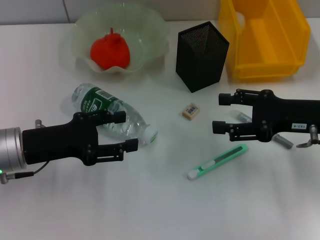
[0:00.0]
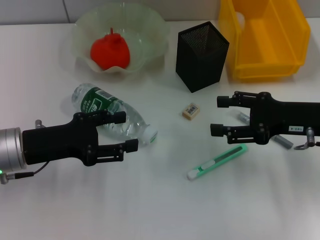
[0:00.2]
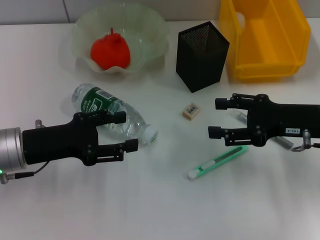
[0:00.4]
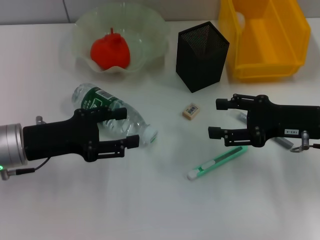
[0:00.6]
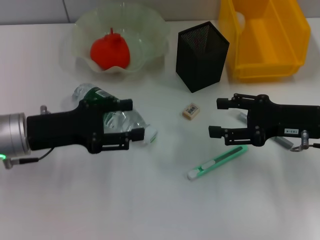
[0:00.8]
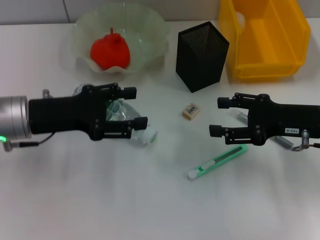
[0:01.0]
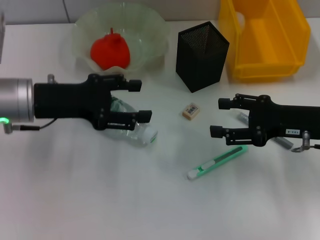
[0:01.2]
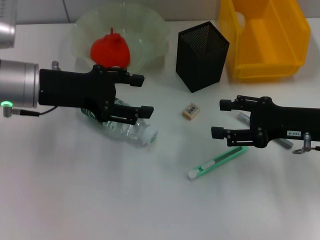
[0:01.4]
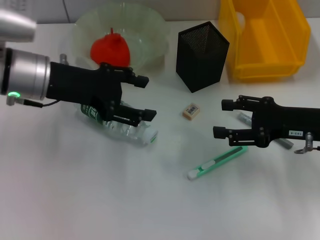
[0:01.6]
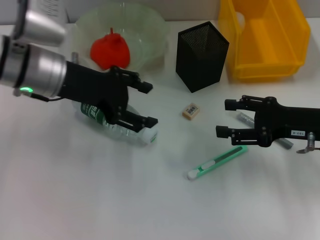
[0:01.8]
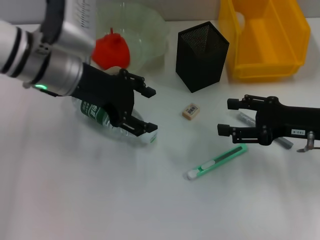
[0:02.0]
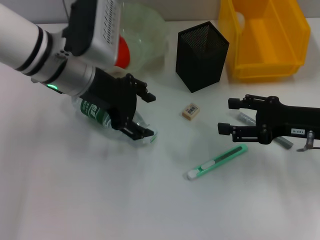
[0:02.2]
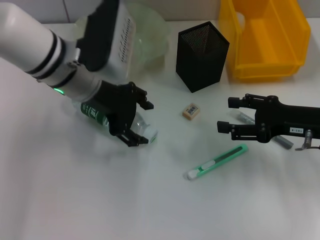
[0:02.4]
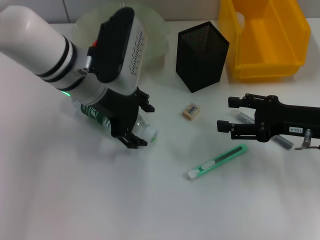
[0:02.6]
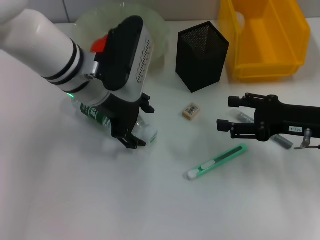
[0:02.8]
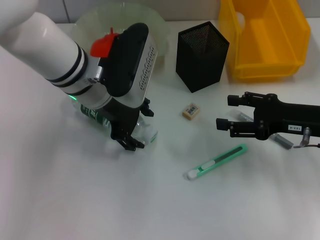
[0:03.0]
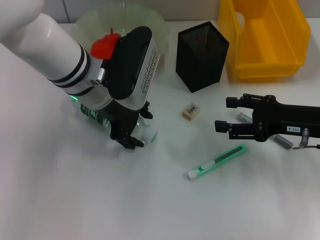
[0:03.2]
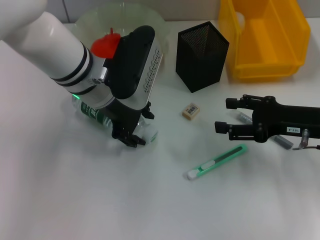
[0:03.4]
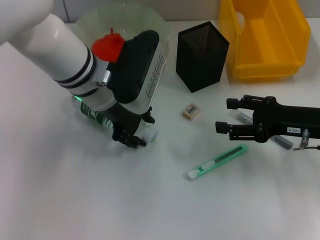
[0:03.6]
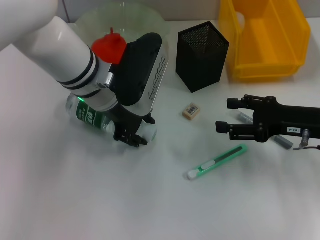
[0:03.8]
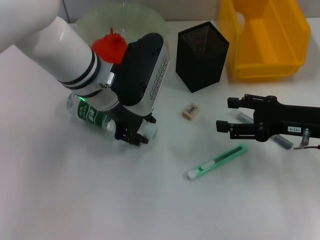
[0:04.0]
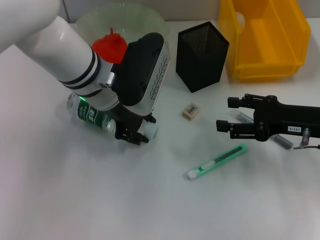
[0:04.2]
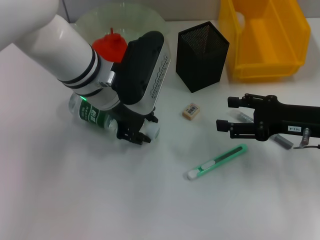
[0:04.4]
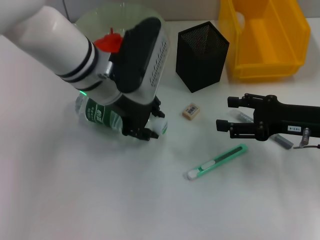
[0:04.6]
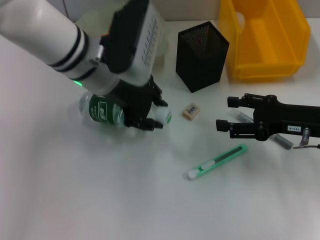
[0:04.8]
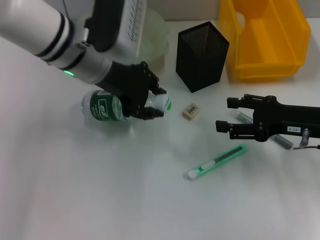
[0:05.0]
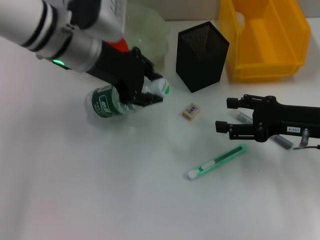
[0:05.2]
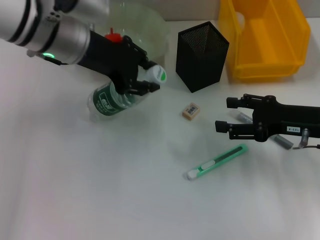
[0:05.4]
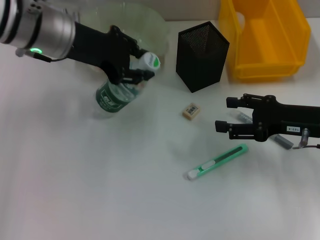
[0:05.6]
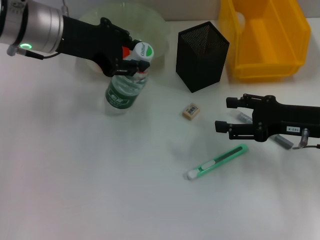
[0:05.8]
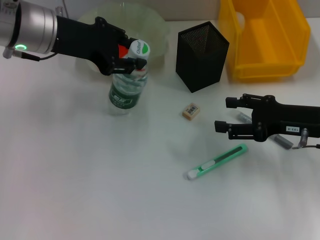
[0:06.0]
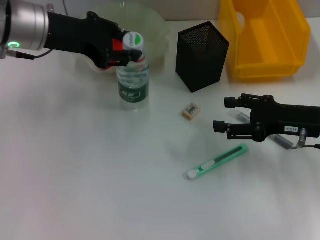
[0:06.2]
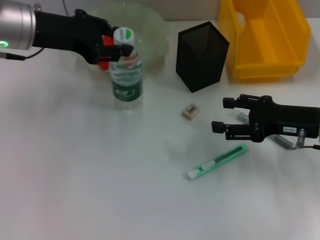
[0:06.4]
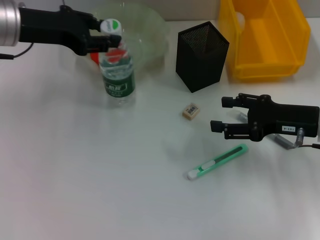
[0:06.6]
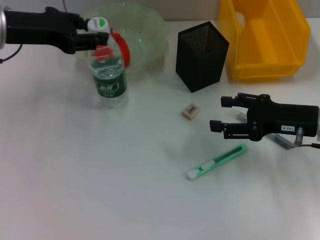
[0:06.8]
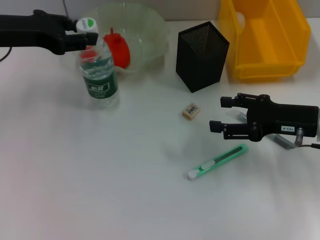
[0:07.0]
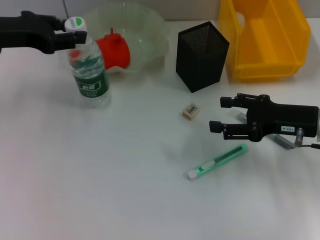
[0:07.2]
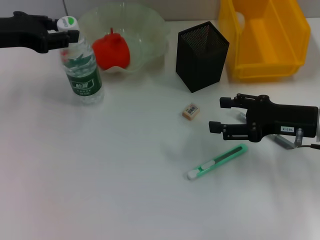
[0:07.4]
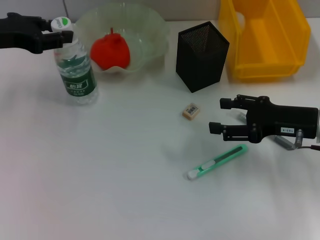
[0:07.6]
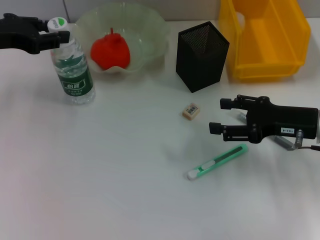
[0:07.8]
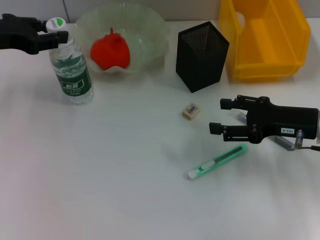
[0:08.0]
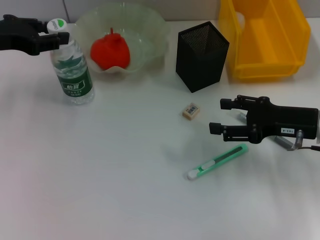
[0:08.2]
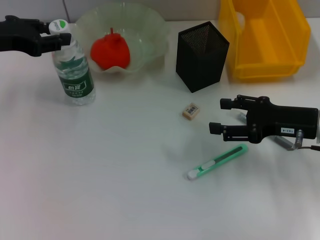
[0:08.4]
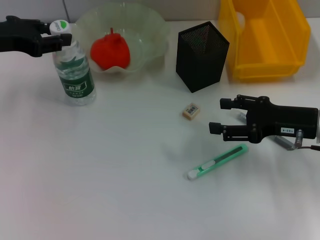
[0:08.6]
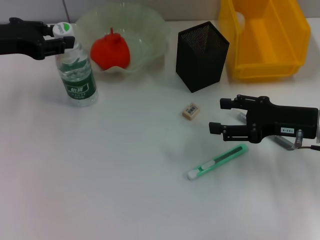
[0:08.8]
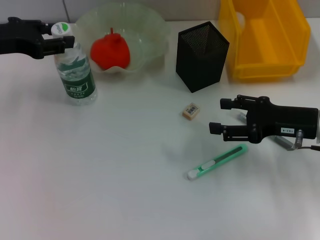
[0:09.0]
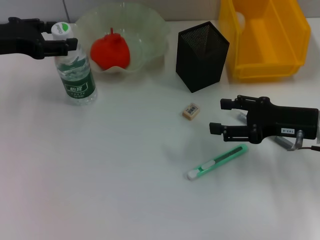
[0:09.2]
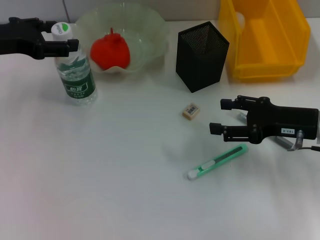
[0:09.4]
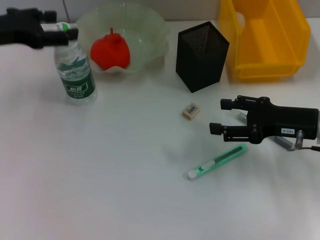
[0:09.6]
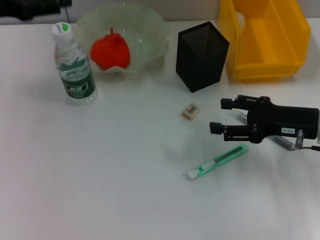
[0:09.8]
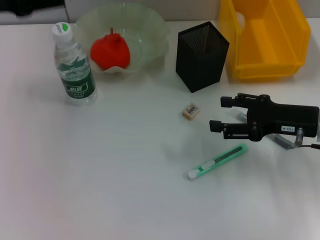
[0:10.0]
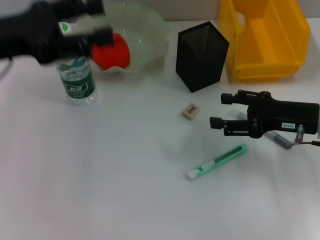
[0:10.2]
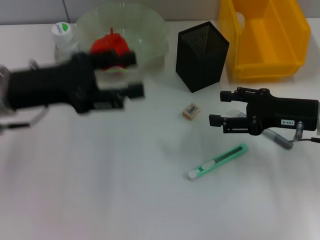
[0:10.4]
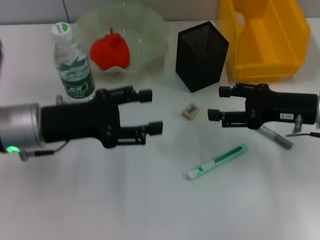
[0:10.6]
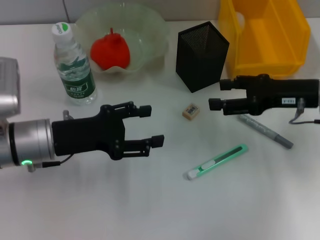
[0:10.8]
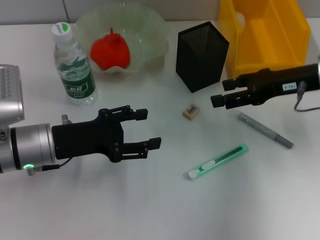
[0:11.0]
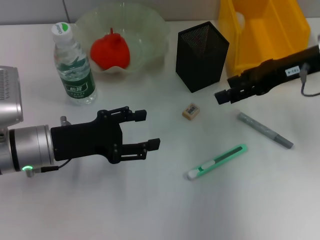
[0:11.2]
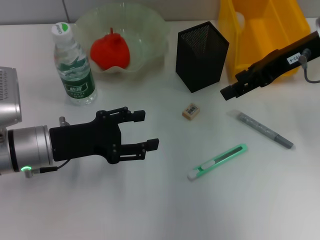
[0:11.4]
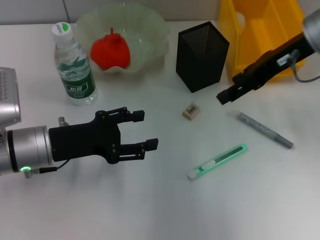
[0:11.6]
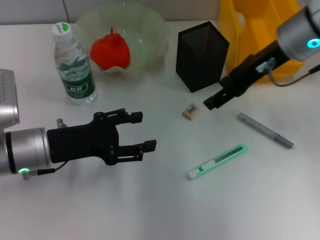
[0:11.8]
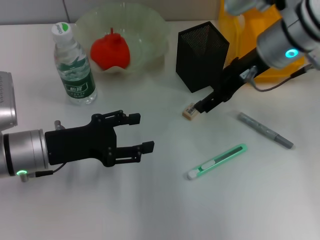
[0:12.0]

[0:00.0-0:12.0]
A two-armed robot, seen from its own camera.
Step, 0:00.0 to 0:03.6: Grab the water bottle with the left hand.
Step, 0:04.0 to 0:07.8: Place the water bottle on the table with the left hand.
0:00.0 to 0:01.6: The left gripper shifts roughly 10 cm upward and forward.
0:01.6 to 0:03.0: The left gripper heads to the right, covering roughly 10 cm.
0:03.0 to 0:04.4: The left gripper closes up.
0:04.4 to 0:06.0: The left gripper travels to the left and upward by approximately 10 cm.
0:06.0 to 0:07.6: The left gripper is displaced to the left by approximately 10 cm.
0:07.6 to 0:09.0: Both grippers stay put.
0:09.0 to 0:10.4: The left gripper travels backward and to the right by approximately 10 cm.
0:10.4 to 0:12.0: The left gripper moves downward, roughly 10 cm. The right gripper travels to the left, upward and forward by some 15 cm.

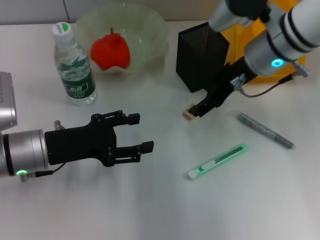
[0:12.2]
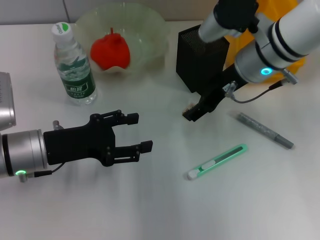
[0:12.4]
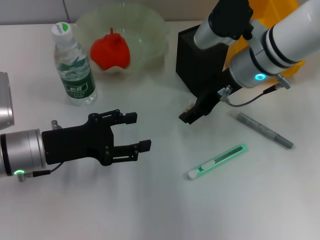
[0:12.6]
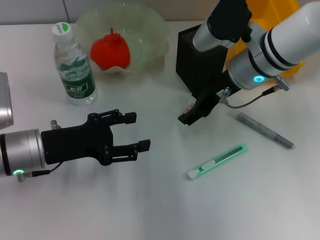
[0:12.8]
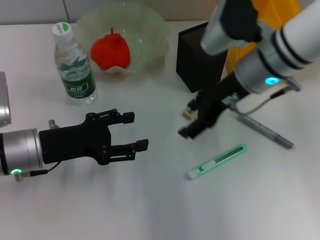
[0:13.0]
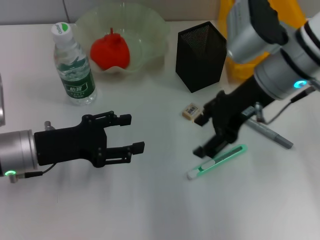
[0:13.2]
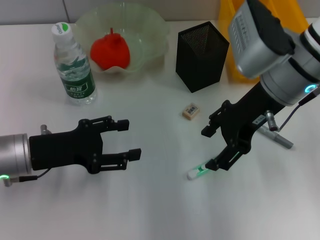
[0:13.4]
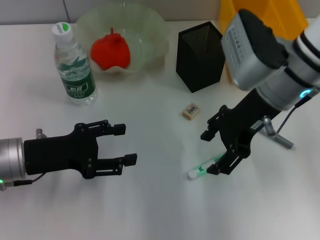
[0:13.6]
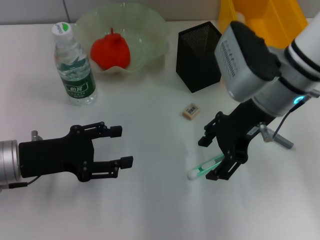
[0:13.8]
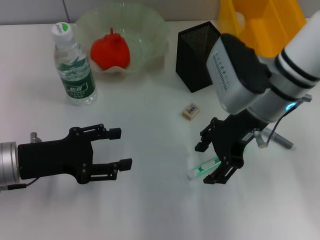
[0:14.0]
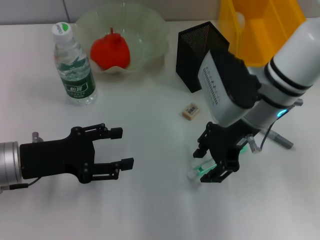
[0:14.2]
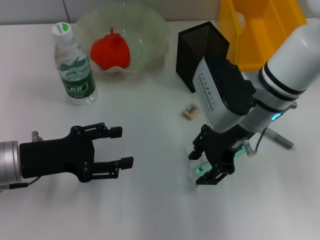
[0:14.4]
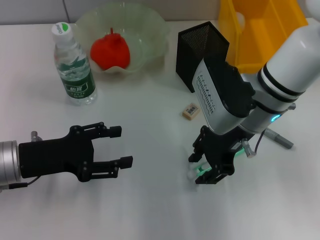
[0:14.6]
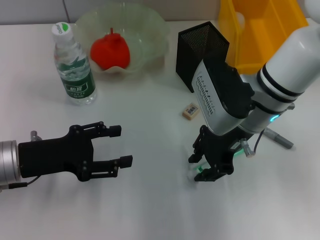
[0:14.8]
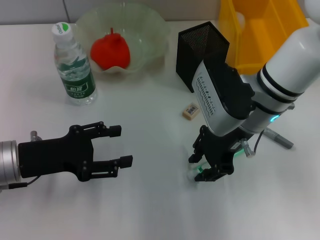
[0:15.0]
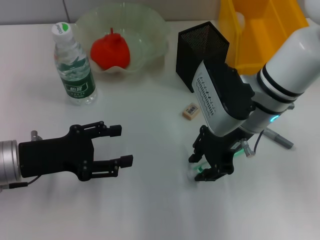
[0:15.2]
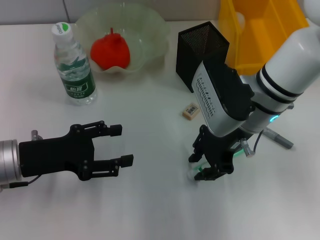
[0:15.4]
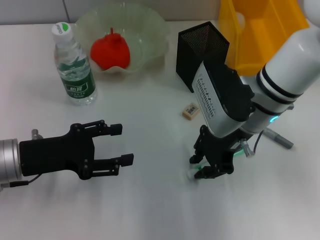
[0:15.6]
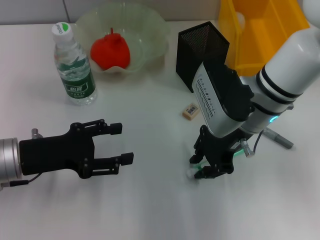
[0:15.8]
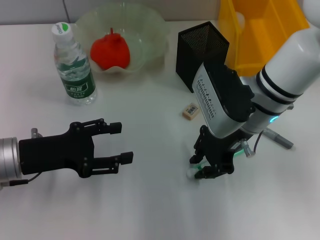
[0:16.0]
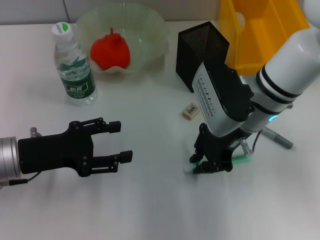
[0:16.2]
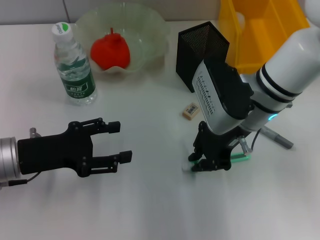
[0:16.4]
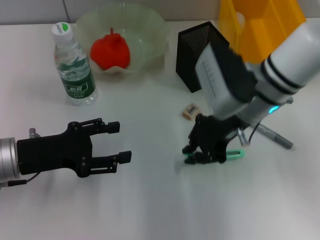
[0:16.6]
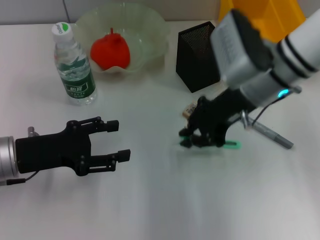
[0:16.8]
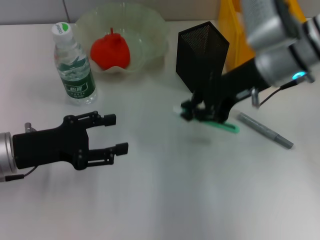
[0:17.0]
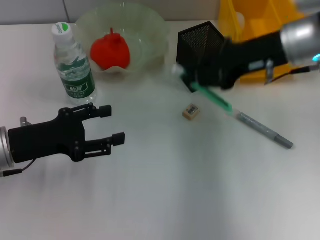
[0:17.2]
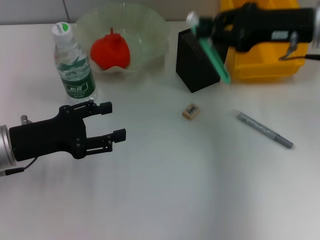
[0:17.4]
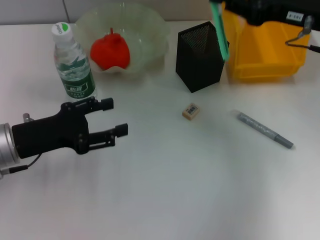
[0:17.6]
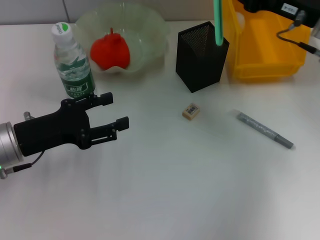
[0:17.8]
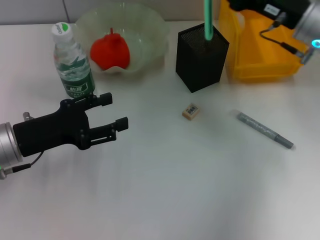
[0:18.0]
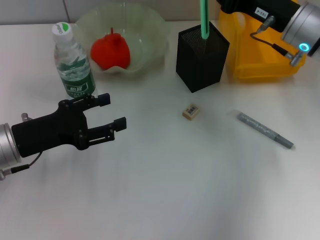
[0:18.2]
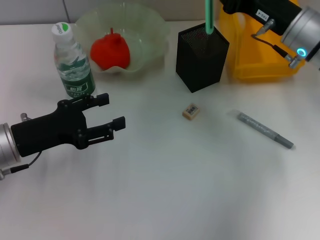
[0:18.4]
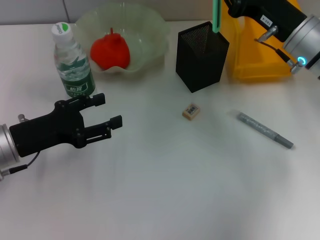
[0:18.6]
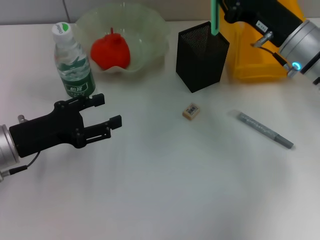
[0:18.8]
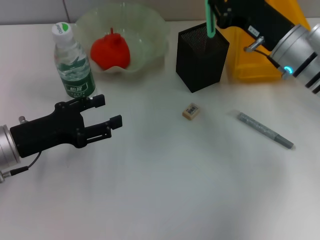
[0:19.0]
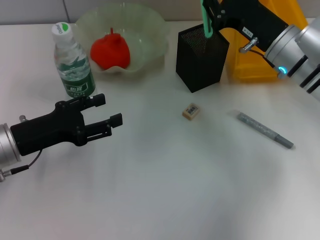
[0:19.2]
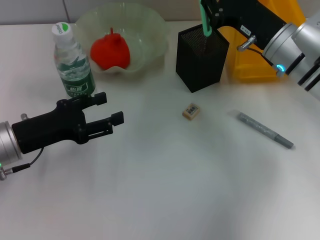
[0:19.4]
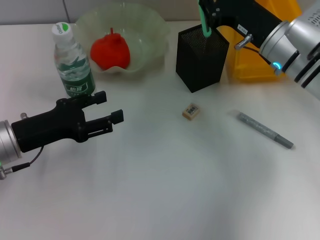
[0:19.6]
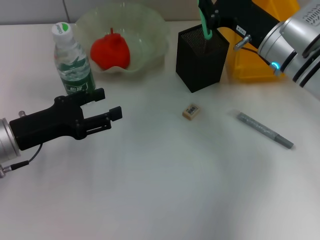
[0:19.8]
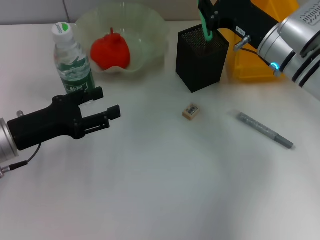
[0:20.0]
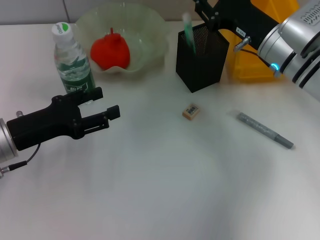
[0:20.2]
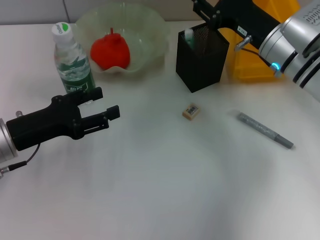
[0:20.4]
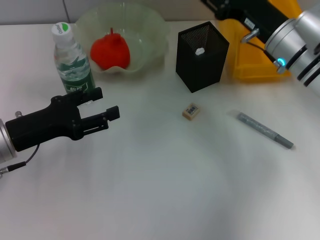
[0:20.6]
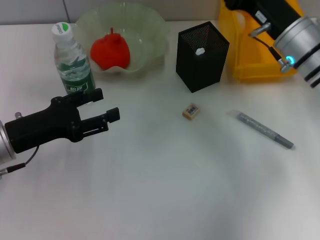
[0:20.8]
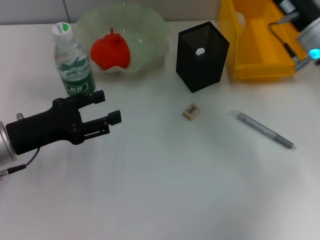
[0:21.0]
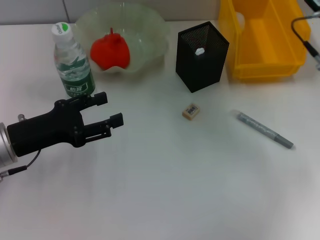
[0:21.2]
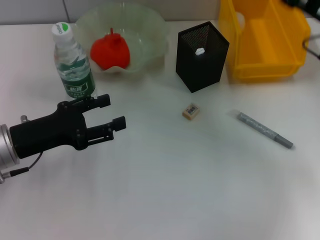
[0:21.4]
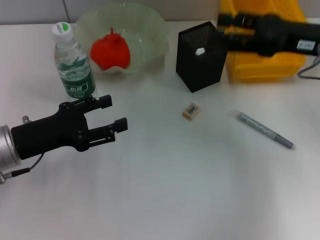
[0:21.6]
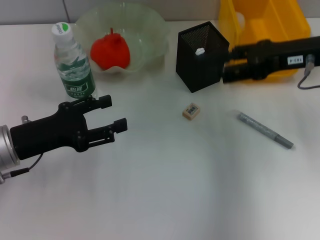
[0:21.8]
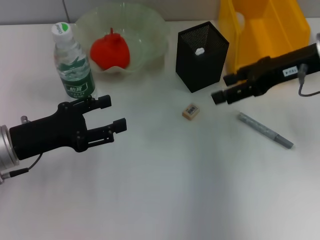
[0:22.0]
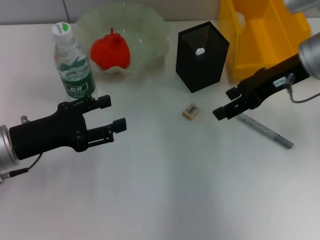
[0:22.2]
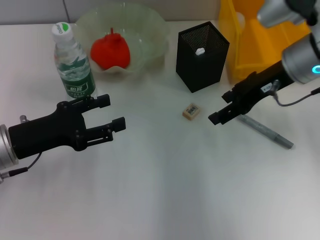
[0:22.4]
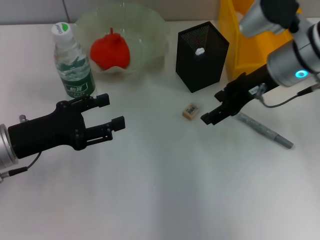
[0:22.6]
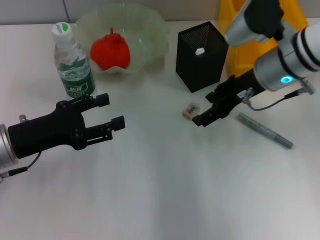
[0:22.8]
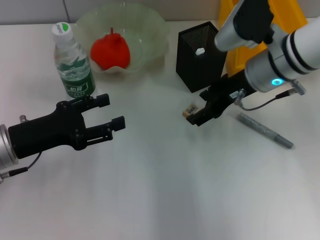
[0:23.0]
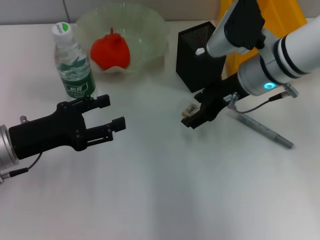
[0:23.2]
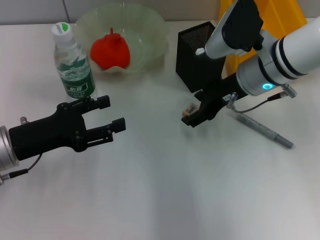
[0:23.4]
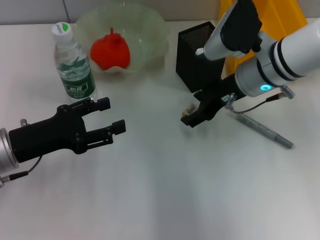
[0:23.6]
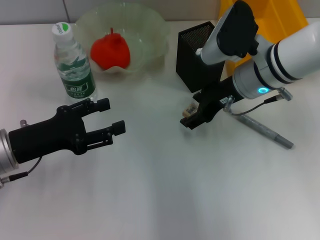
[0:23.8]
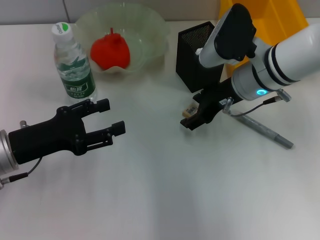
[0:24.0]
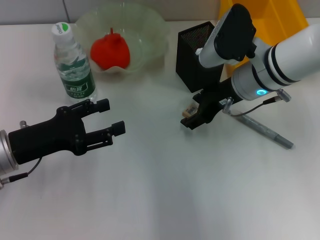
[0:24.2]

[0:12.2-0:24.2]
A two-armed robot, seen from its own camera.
Step, 0:12.2 to 0:16.2: Grab the blue utility knife with the right hand.
Step, 0:16.4 to 0:20.2: Place the blue utility knife into the pen holder with the right hand.
0:13.8 to 0:15.2: The right gripper closes.
0:15.2 to 0:16.6: There are only small adjustments of the grippers.
0:16.6 to 0:18.2: The right gripper travels to the right by approximately 10 cm.
0:18.2 to 0:19.8: The grippers stay close to where they were, moving slightly.
0:19.8 to 0:21.2: The right gripper moves to the right, some 5 cm, and opens its fingers.
0:21.2 to 0:22.6: The right gripper travels to the left by roughly 5 cm.
0:22.6 to 0:24.2: The right gripper moves some 5 cm.
